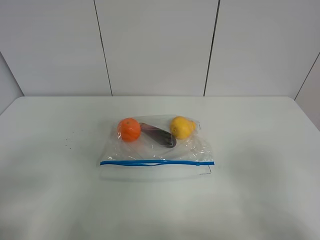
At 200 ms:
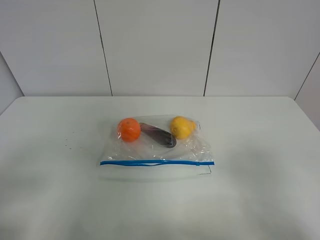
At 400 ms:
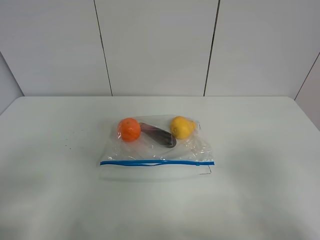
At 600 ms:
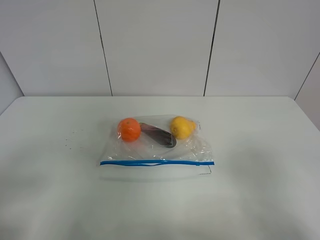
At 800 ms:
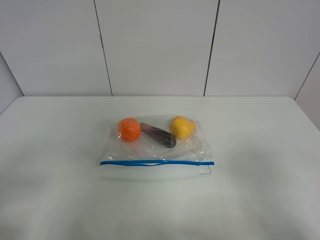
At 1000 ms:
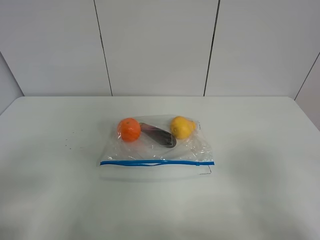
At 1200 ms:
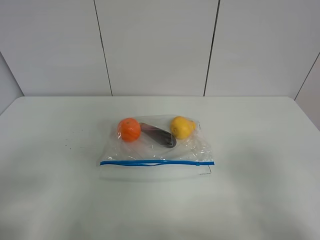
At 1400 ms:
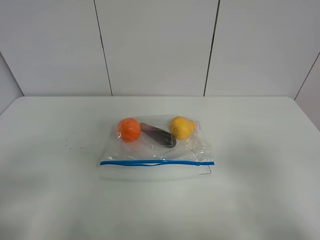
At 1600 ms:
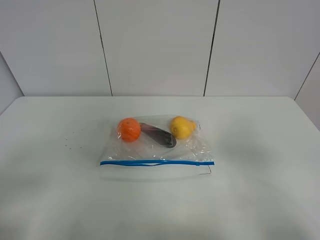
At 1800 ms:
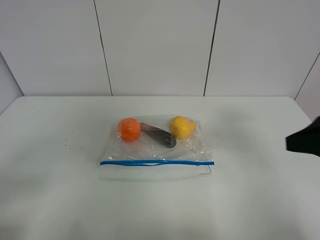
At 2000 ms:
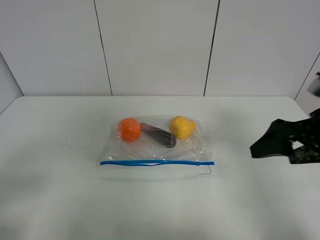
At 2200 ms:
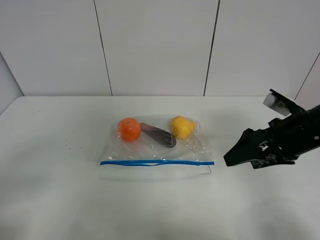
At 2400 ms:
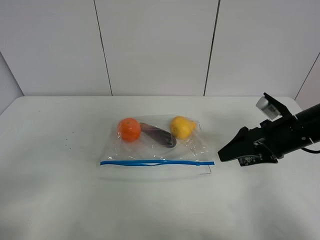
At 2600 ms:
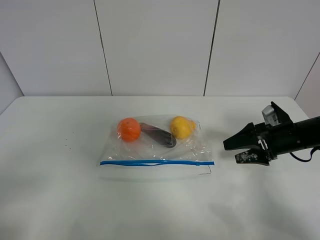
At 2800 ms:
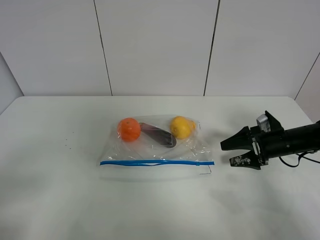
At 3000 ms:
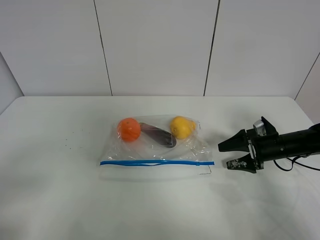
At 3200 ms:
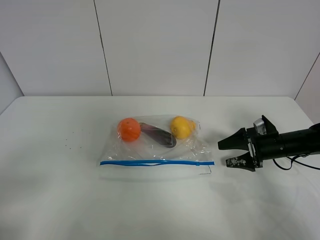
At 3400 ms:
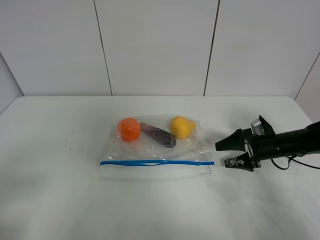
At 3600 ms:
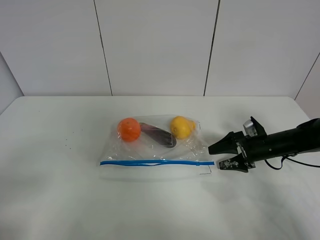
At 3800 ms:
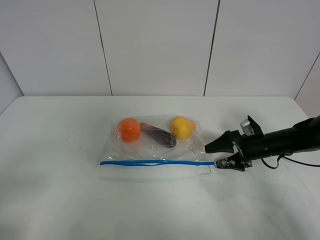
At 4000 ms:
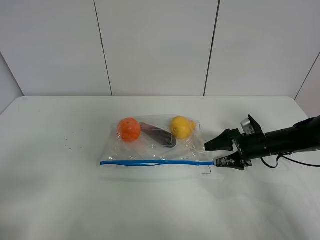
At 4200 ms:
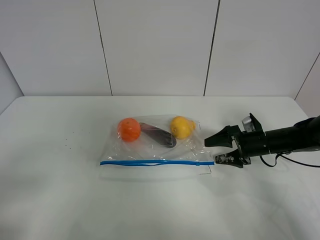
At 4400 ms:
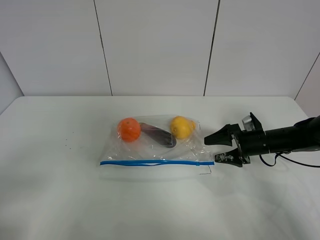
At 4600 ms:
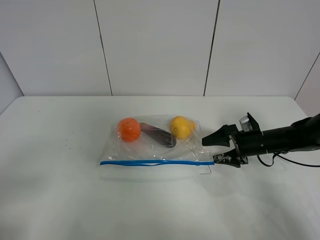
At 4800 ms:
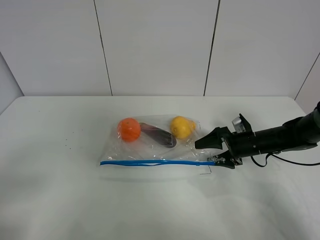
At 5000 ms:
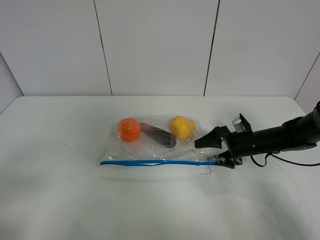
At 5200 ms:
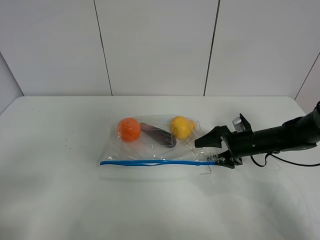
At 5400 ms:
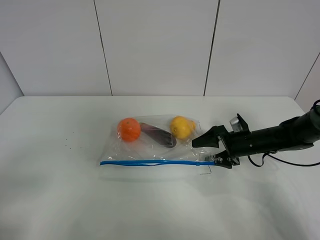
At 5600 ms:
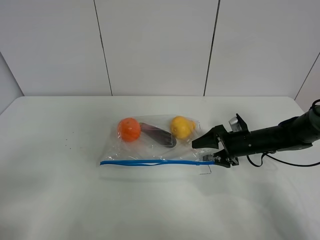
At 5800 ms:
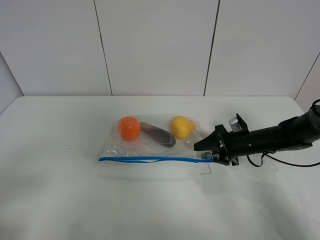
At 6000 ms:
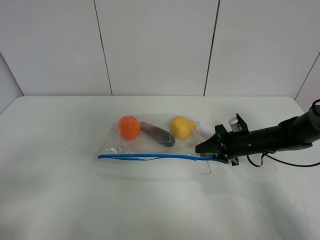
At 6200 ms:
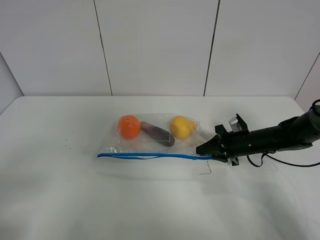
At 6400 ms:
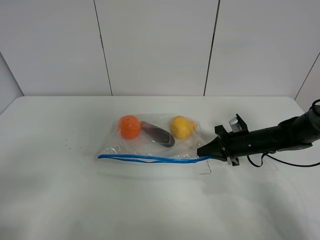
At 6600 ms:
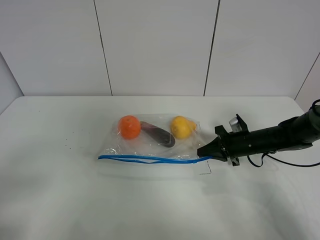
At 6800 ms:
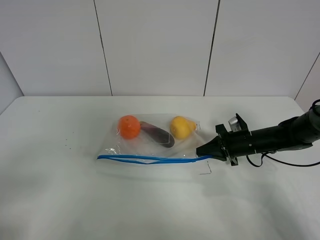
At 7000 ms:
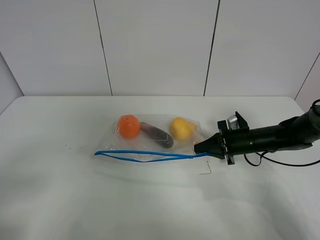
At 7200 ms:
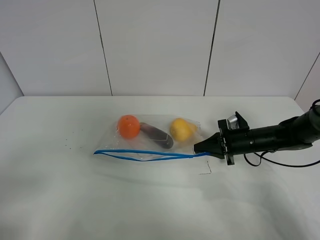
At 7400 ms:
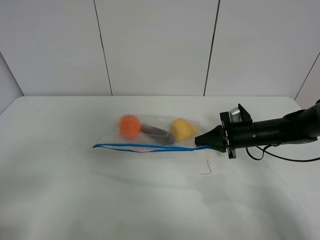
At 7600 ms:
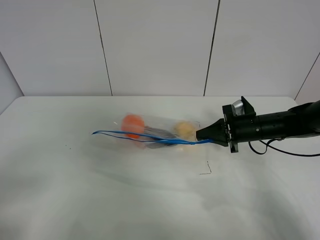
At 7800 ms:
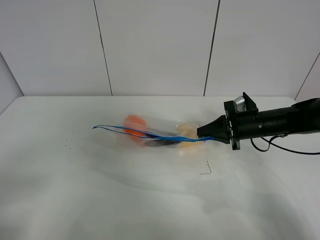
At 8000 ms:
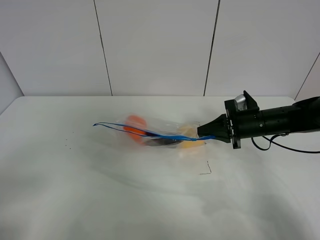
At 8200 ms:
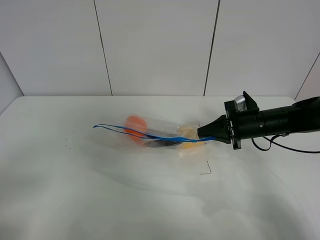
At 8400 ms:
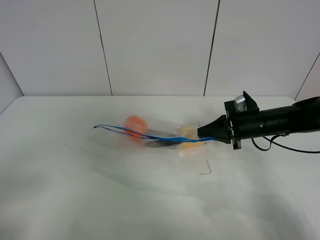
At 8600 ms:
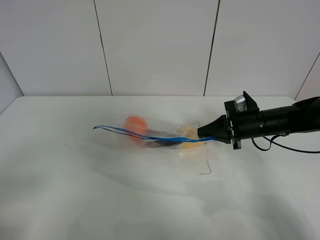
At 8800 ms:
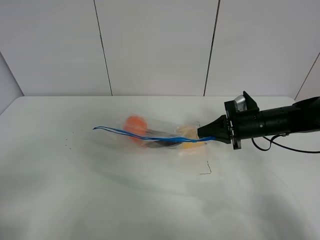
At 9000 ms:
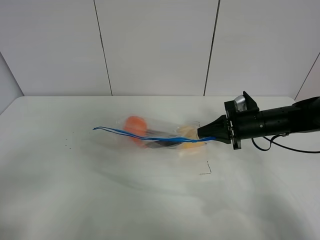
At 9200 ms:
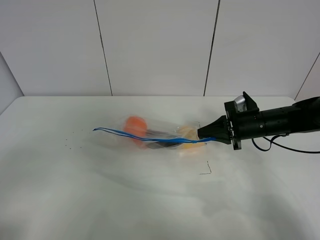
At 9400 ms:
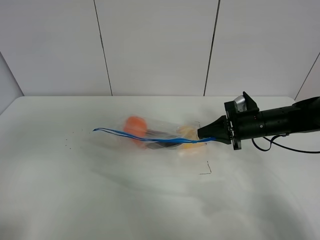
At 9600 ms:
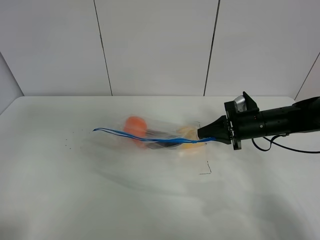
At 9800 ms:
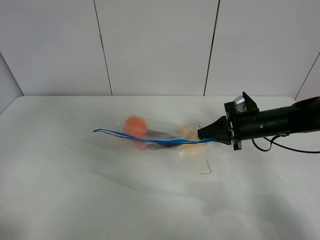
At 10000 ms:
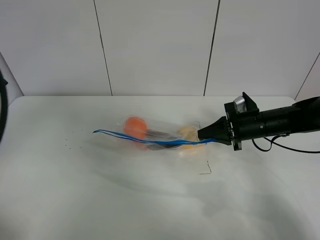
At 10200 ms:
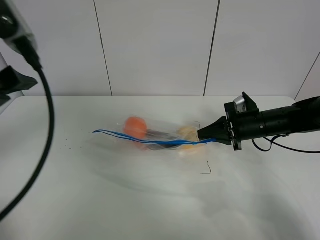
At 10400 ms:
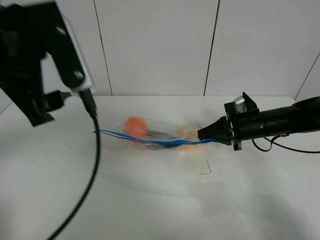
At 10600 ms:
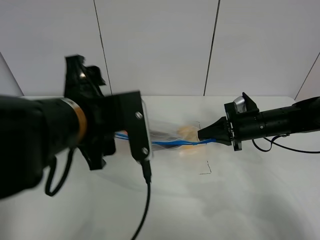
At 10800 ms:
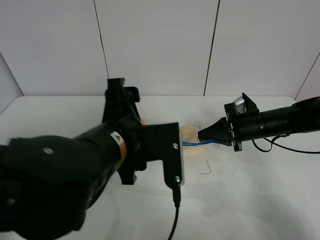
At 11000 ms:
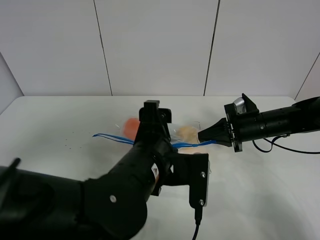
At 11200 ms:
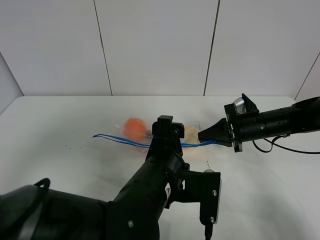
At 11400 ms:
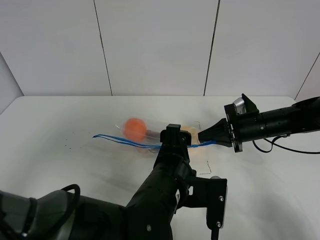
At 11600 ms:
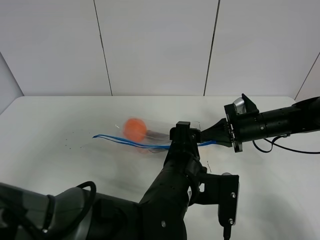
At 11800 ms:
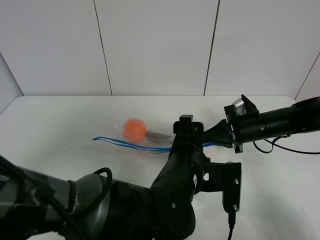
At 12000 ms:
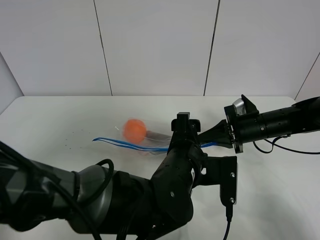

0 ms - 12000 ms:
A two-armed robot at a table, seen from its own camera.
Step, 0 ms - 6400 ms: Grasp the fruit bag with right gripper.
Step, 6600 ms - 8000 ms: Lift the fruit bag with your right gripper.
1600 ms - 3000 ms: The right gripper shifts roughly 35 cm forward and downward.
3000 ms - 4400 ms: There are only small adjustments of the grippers.
4400 ms - 6000 ms: The right gripper closes up.
6000 ms - 7600 ms: The right gripper moves upward, some 5 cm, and closes up.
7600 ms - 9000 ms: The grippers move only a little.
9000 ms - 10400 ms: The left gripper travels forward and to the right by some 25 cm.
10400 ms - 12000 ms: The left gripper heads downward and to the right, covering about 30 cm.

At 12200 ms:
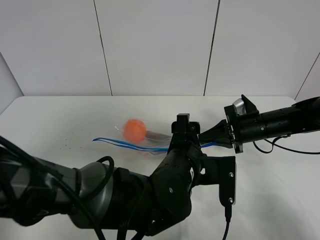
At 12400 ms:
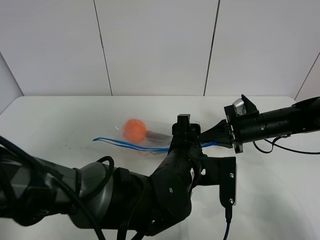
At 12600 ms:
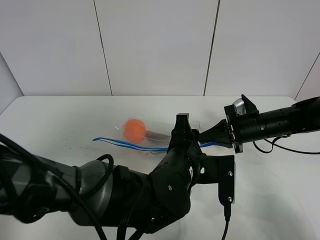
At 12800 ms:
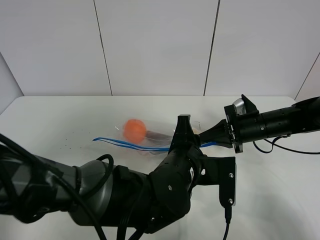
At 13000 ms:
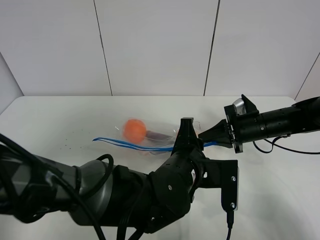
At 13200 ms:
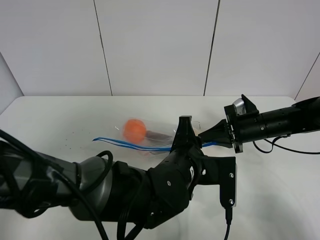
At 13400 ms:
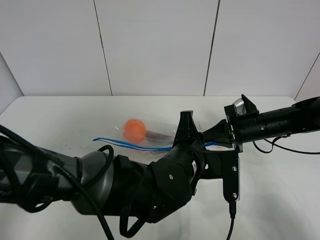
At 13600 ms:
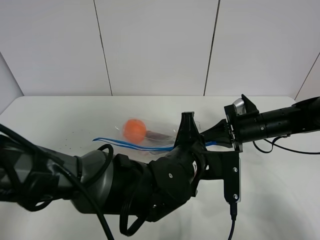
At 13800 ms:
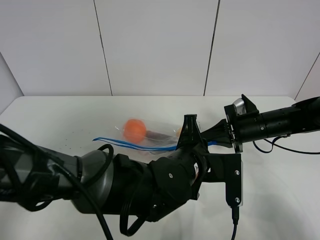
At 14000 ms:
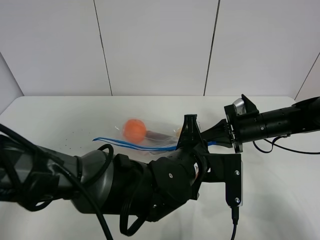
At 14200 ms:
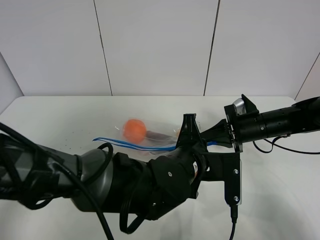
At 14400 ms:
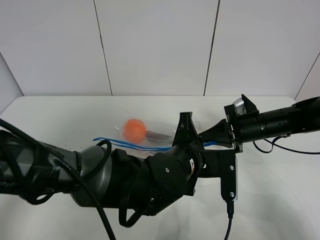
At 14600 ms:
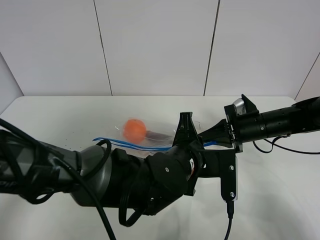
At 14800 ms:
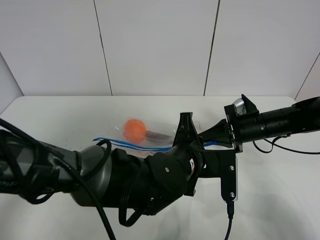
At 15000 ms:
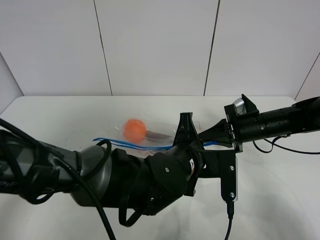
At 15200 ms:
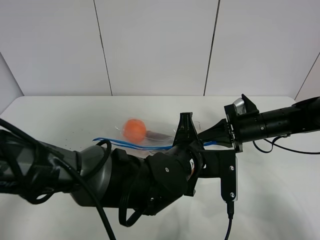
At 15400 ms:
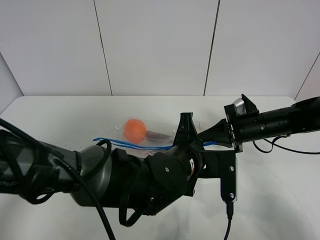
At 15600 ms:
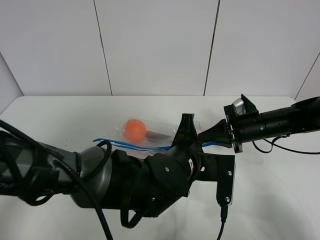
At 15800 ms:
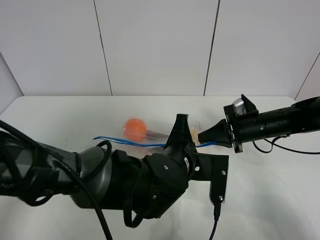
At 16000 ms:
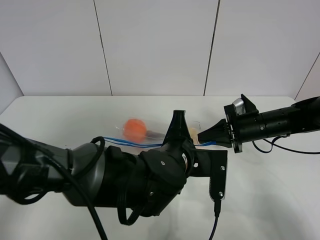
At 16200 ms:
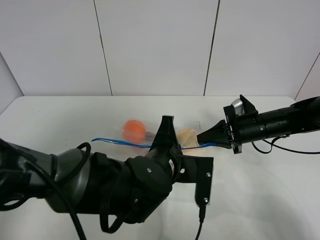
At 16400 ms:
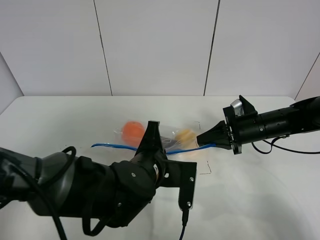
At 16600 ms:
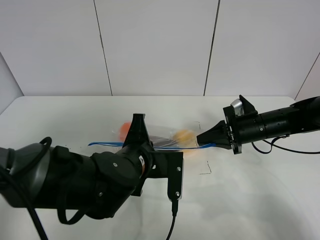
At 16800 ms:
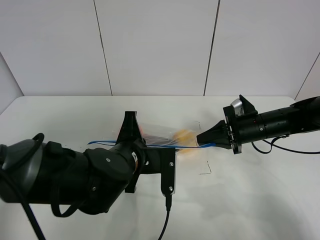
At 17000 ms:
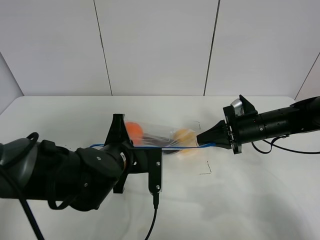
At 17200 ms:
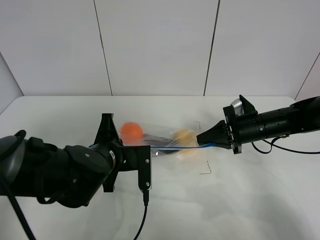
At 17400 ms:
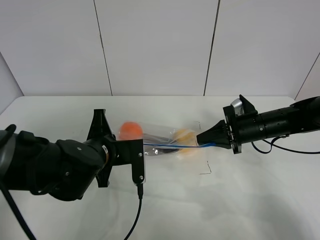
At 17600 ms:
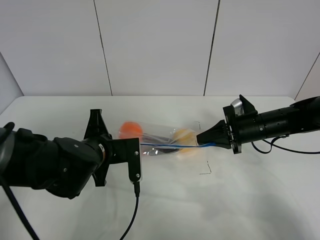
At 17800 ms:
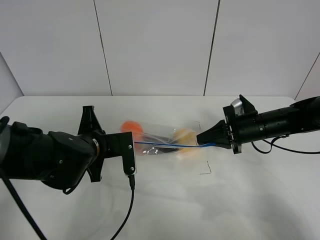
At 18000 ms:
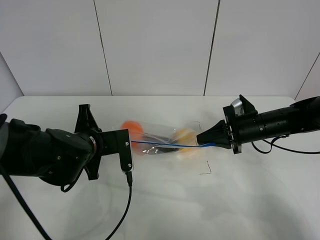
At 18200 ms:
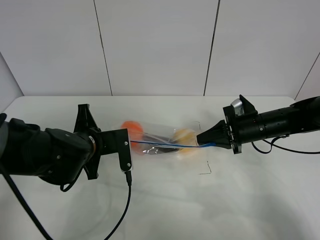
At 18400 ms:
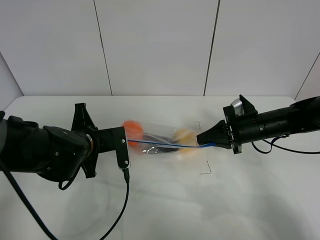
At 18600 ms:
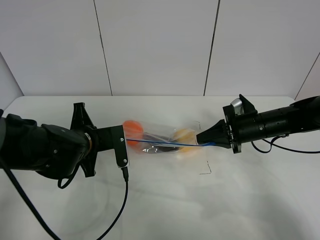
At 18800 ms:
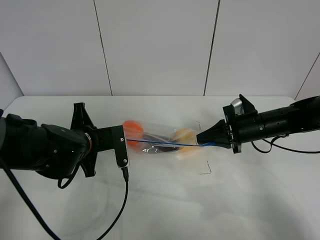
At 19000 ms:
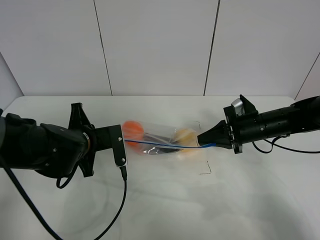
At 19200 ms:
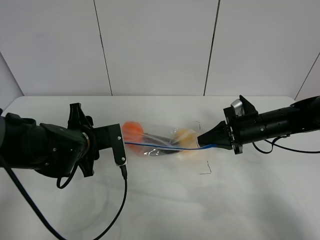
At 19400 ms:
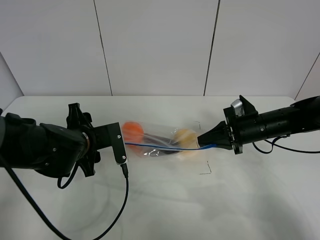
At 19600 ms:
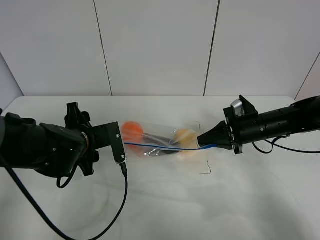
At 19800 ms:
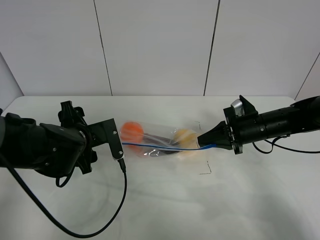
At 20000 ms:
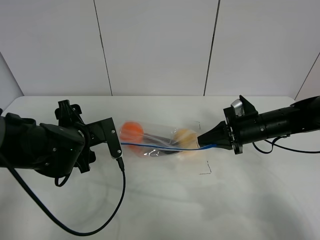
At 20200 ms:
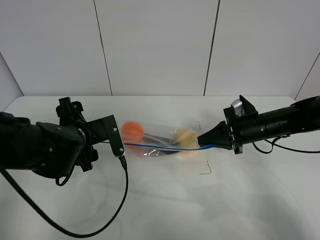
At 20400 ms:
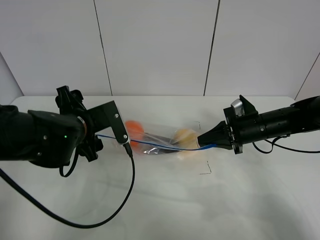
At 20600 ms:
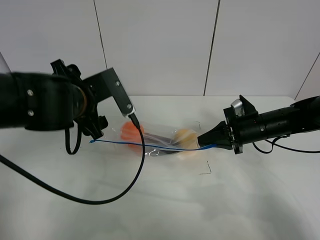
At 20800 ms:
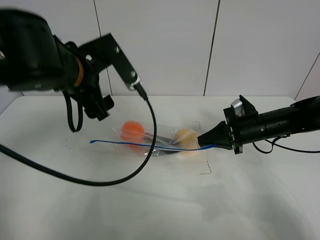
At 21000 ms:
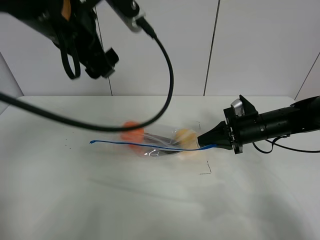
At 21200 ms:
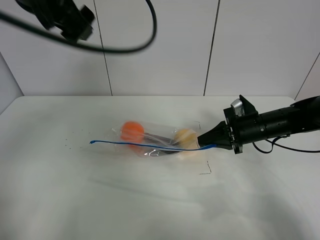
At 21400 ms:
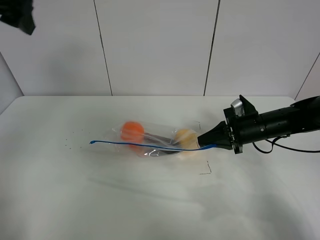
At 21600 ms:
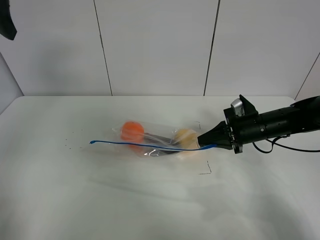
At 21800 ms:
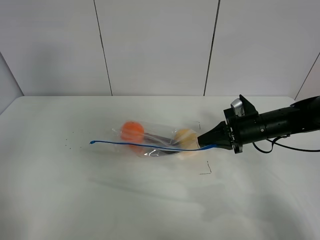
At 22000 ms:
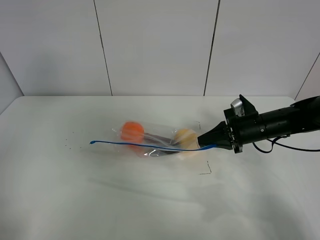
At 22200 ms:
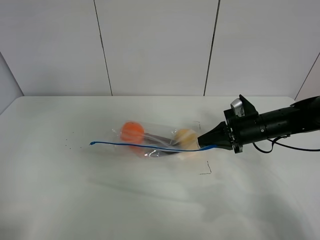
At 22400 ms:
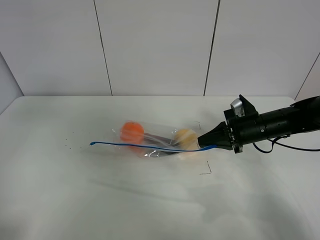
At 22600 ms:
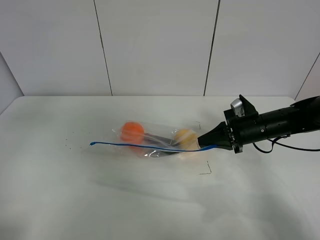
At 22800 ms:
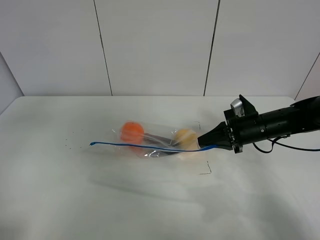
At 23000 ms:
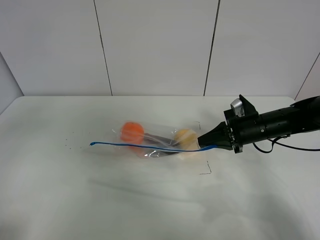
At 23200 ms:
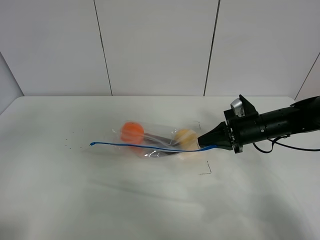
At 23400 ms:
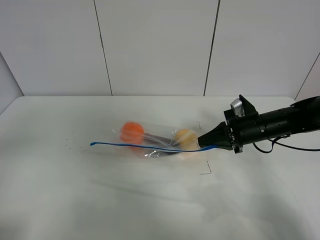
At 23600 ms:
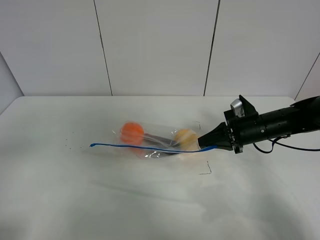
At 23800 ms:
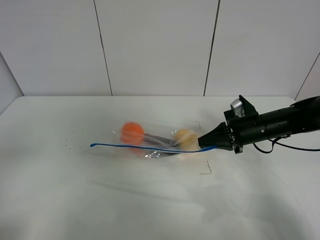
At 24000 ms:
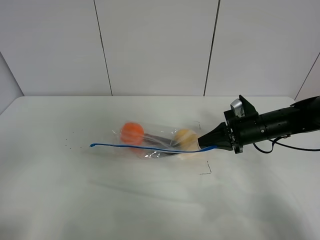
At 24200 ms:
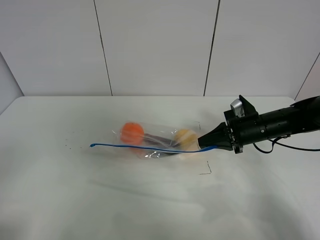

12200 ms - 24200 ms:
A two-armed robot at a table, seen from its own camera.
Step, 12200 ms - 19800 ms: Pull the fruit bag with left gripper.
12200 ms - 13800 ms: The left gripper closes.
13800 ms - 15200 ms: The two grippers keep their place.
15200 ms - 16600 ms: The left gripper heads to the left, covering roughly 10 cm.
16600 ms - 18200 ms: The left gripper travels to the left by roughly 10 cm.
18200 ms - 19800 ms: The left gripper opens up.
19800 ms - 21200 ms: The left gripper shifts about 30 cm upward.
21200 ms - 22600 ms: The left gripper heads to the left and backward, covering about 20 cm.
